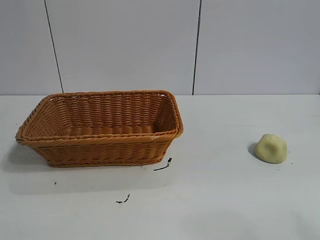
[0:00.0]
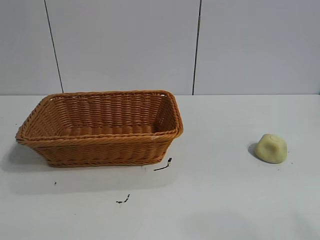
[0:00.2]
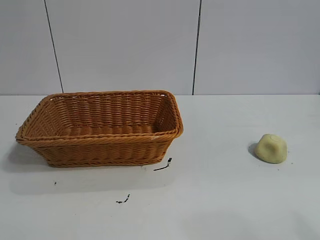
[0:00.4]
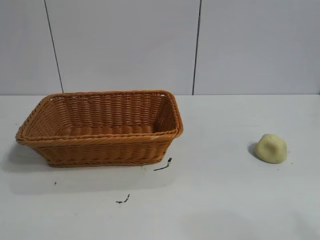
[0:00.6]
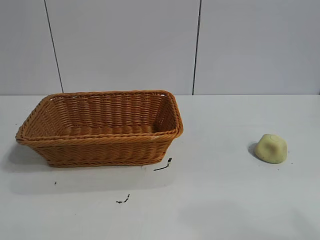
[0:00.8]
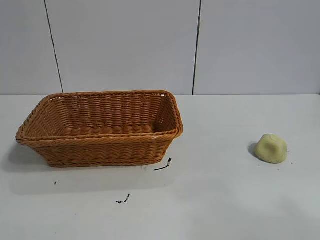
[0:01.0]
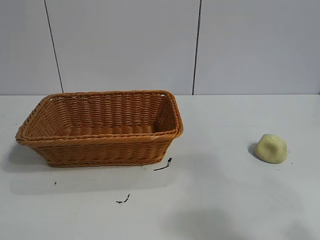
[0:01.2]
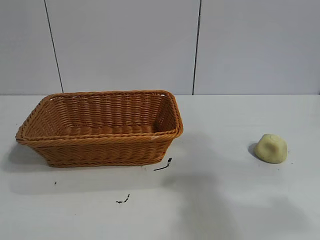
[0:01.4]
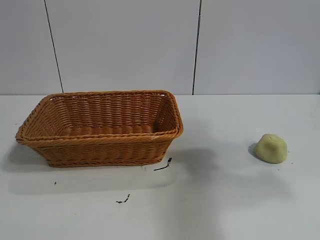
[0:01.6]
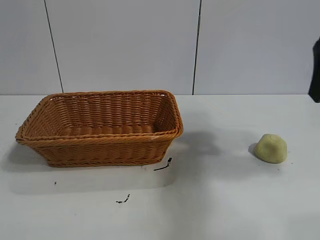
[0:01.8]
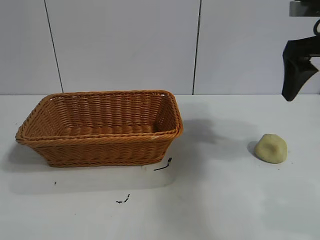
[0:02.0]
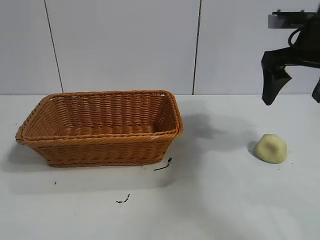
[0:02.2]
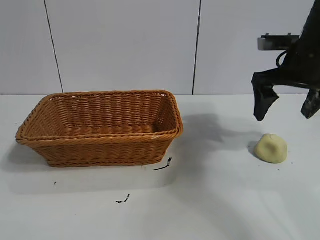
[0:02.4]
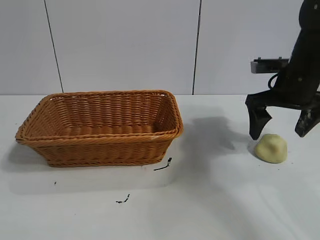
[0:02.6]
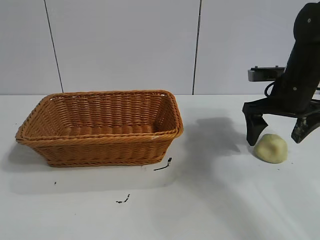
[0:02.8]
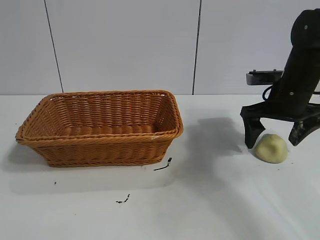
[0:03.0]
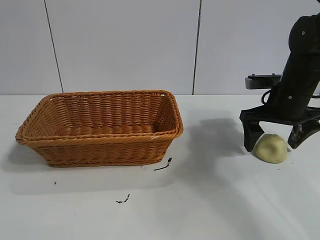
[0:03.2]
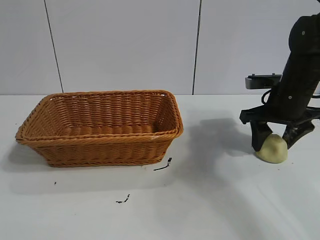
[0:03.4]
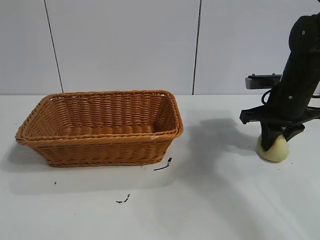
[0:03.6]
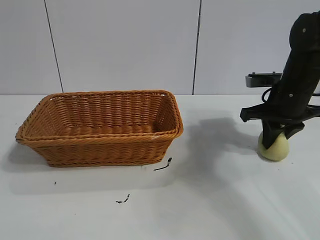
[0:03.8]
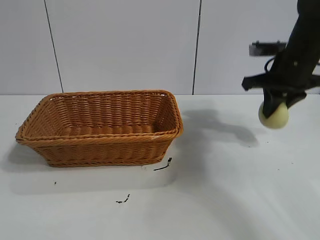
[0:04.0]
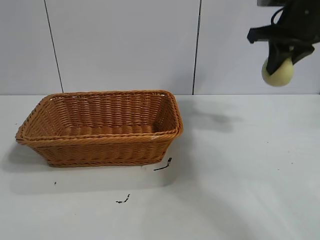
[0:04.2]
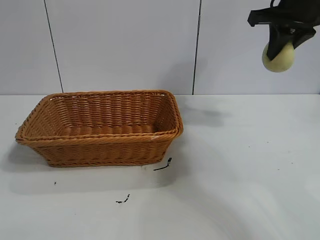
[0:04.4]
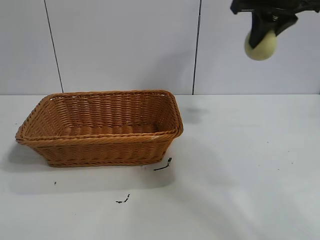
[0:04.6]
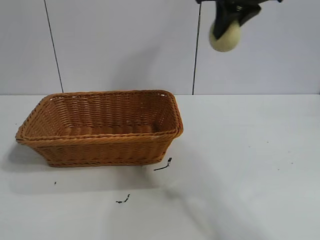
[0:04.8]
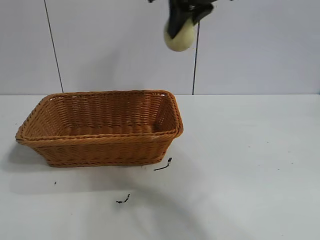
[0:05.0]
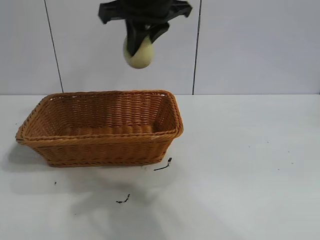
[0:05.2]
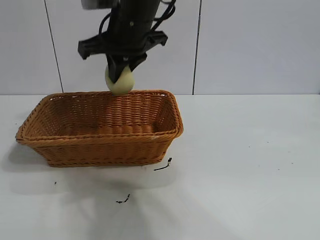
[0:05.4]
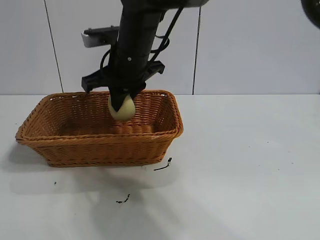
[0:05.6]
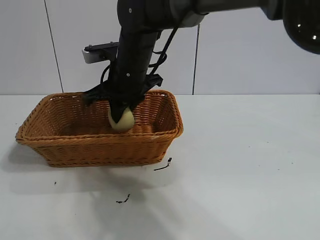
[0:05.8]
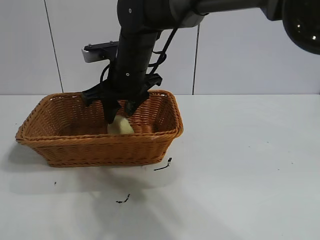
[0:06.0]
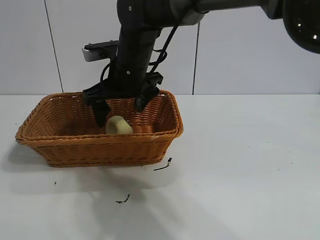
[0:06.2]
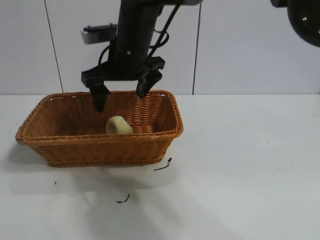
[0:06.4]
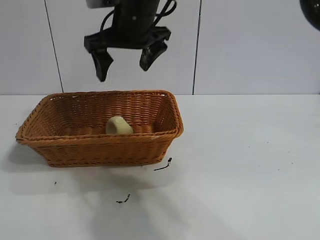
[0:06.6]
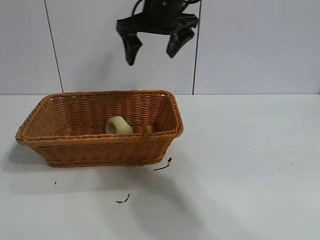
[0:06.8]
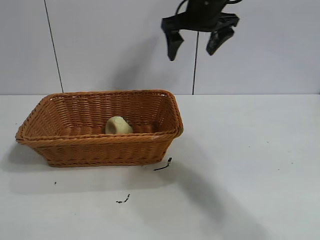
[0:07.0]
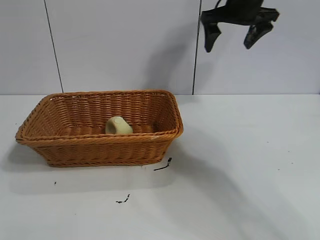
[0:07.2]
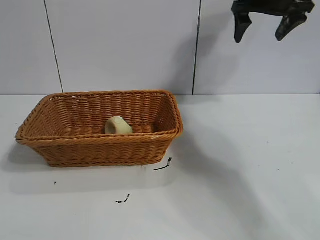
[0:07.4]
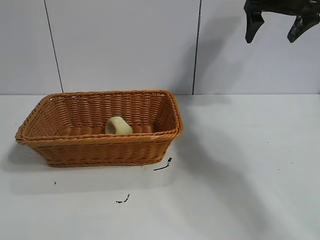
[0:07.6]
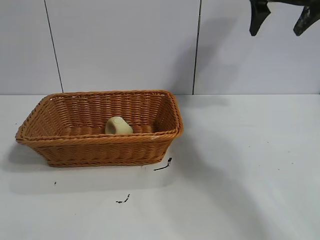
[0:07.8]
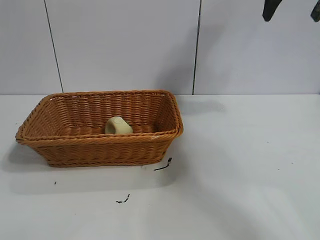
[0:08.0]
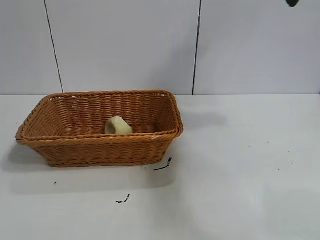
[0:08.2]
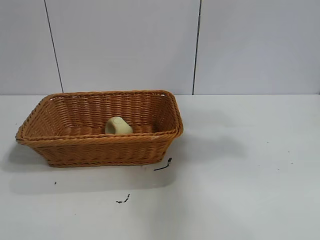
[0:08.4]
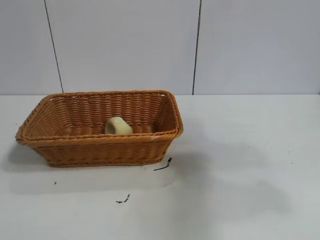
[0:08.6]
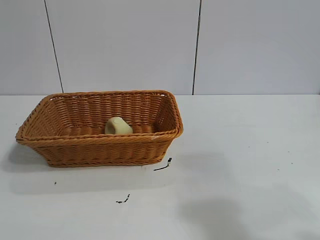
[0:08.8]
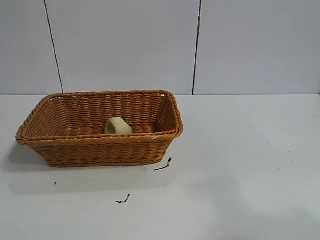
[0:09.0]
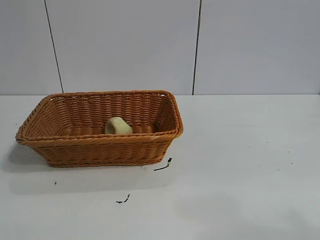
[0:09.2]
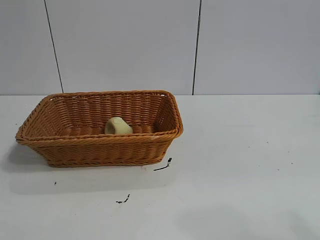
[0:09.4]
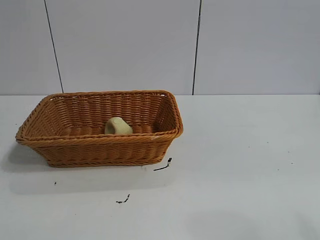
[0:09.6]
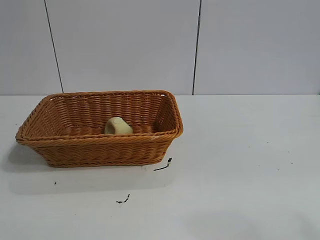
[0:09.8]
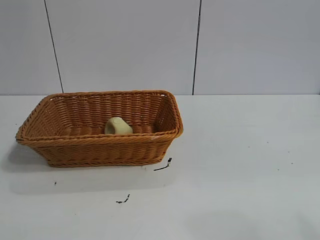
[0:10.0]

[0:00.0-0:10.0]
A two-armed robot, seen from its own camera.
Task of the whole recording: pick up the egg yolk pastry and put it into the basket.
Step, 0.8 to 3.4 s: Grasp egg yolk pastry with right gripper.
Step, 3.8 to 6.0 s: Place the egg yolk pastry in the basket with right gripper.

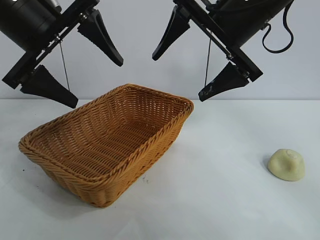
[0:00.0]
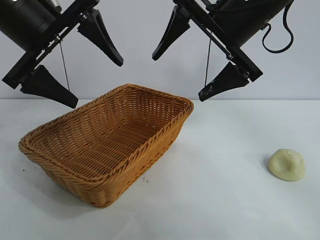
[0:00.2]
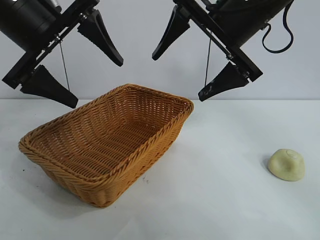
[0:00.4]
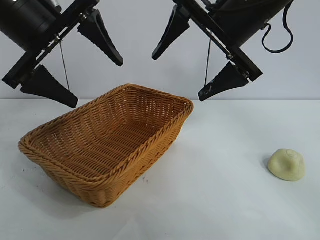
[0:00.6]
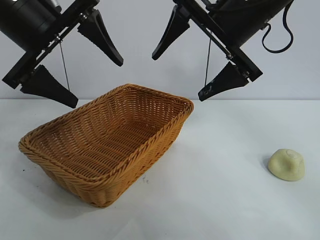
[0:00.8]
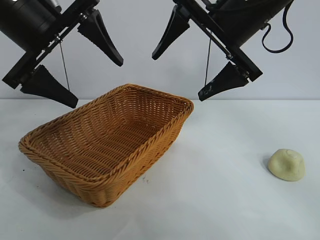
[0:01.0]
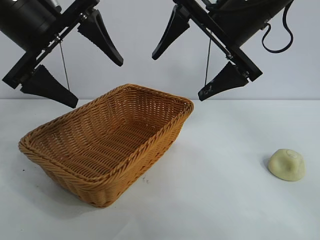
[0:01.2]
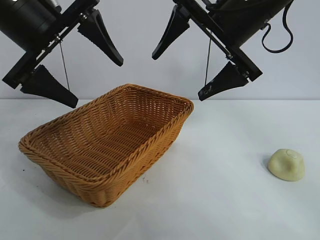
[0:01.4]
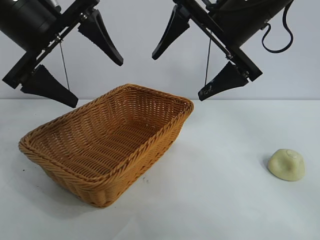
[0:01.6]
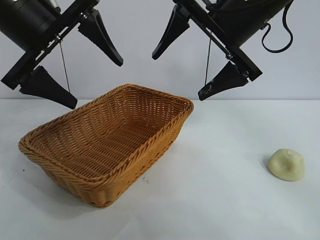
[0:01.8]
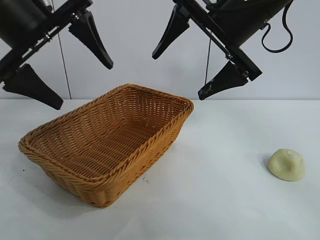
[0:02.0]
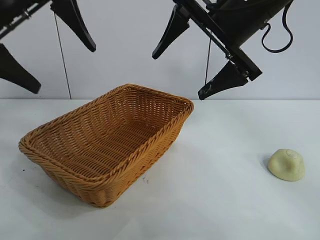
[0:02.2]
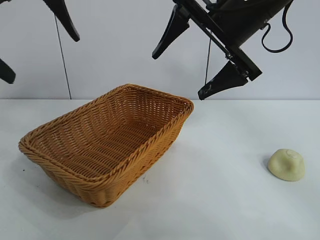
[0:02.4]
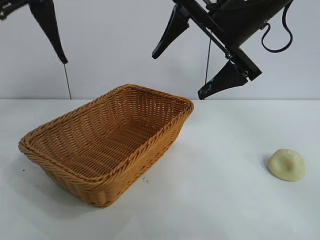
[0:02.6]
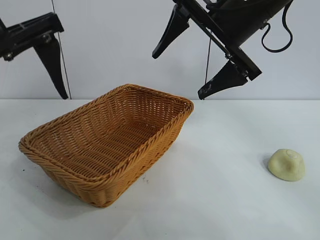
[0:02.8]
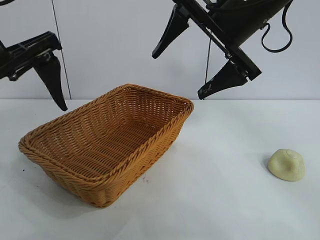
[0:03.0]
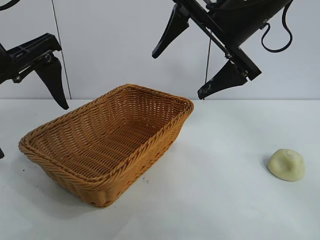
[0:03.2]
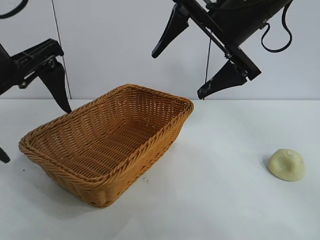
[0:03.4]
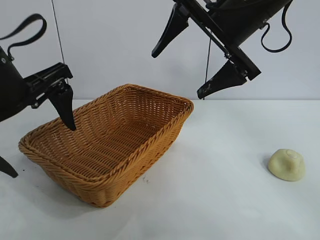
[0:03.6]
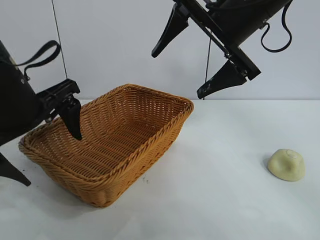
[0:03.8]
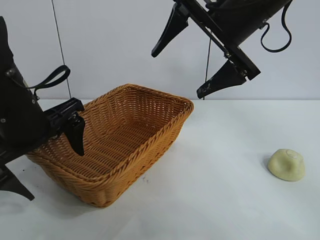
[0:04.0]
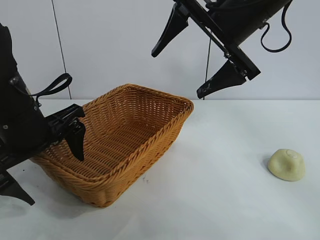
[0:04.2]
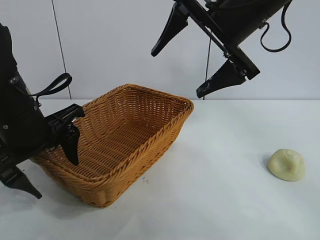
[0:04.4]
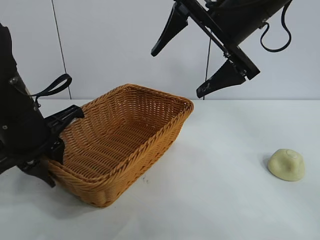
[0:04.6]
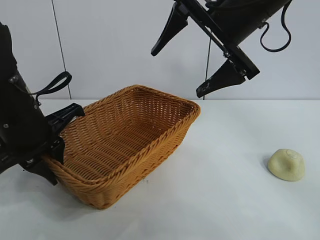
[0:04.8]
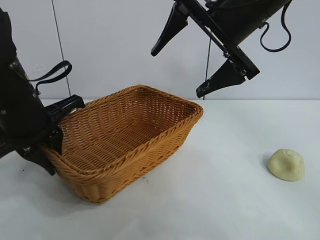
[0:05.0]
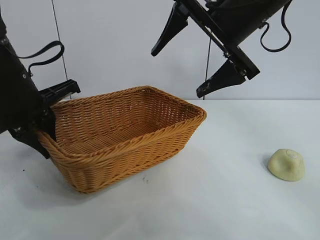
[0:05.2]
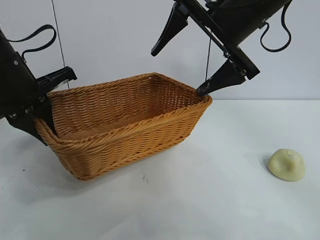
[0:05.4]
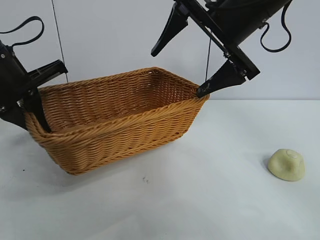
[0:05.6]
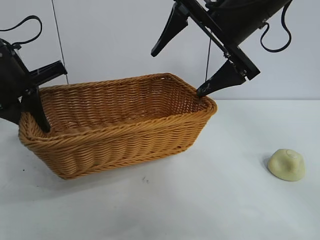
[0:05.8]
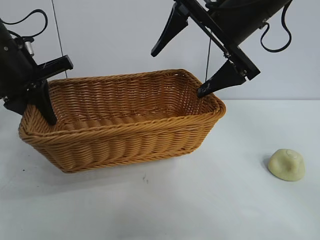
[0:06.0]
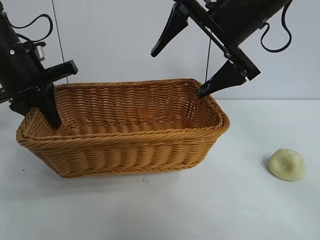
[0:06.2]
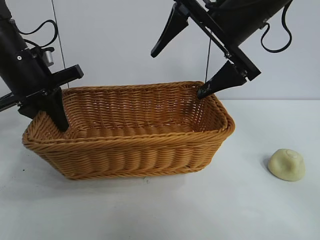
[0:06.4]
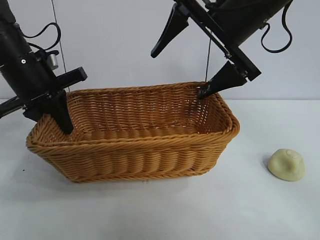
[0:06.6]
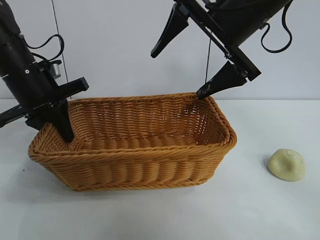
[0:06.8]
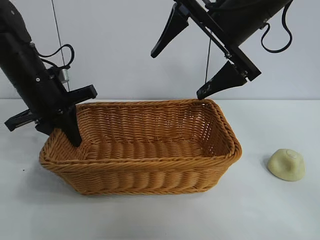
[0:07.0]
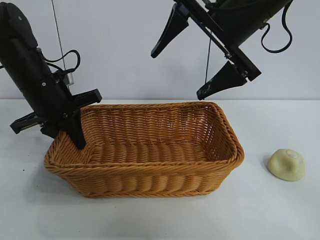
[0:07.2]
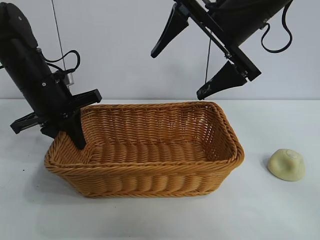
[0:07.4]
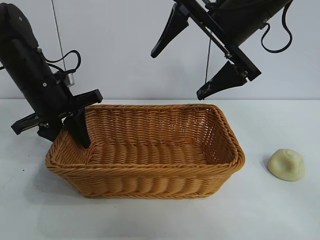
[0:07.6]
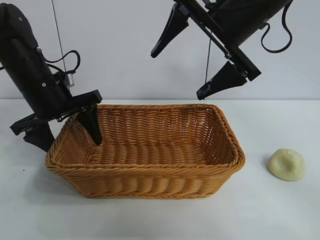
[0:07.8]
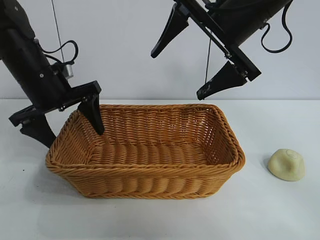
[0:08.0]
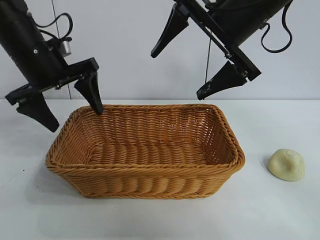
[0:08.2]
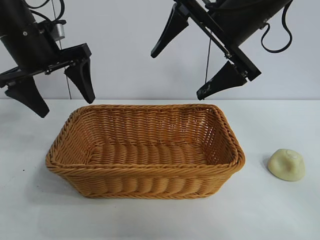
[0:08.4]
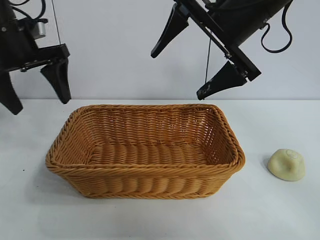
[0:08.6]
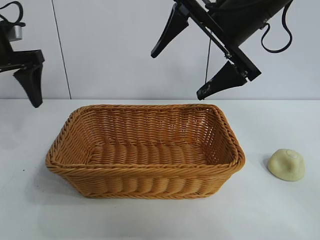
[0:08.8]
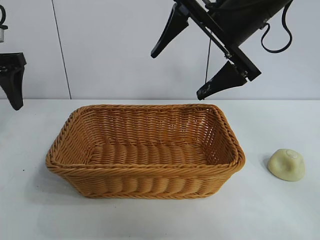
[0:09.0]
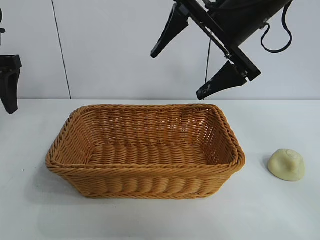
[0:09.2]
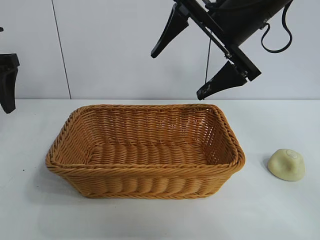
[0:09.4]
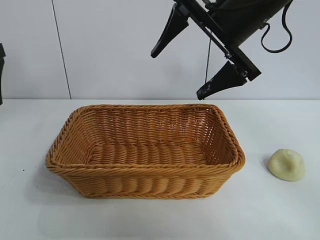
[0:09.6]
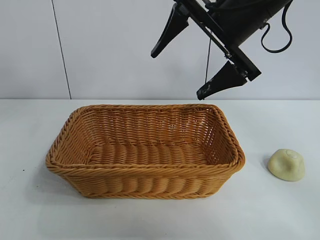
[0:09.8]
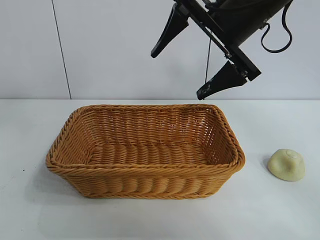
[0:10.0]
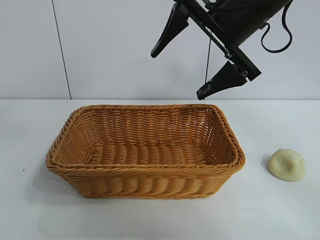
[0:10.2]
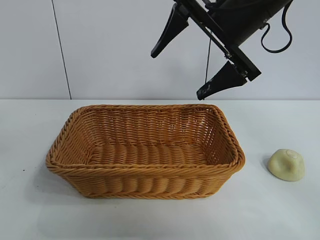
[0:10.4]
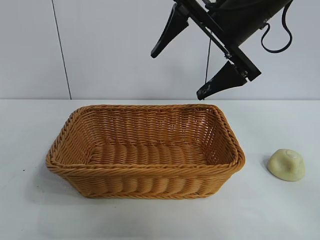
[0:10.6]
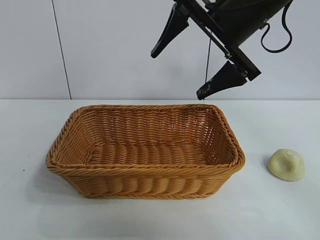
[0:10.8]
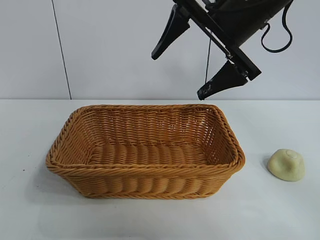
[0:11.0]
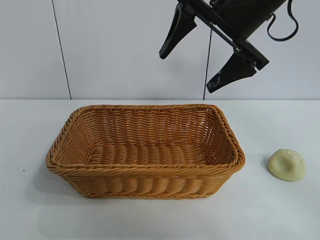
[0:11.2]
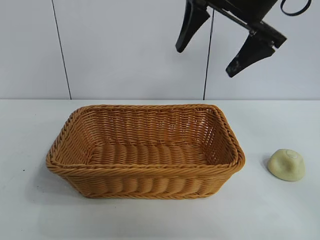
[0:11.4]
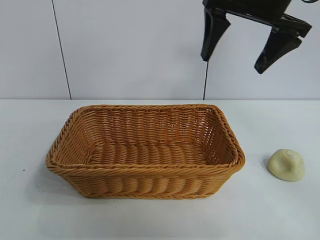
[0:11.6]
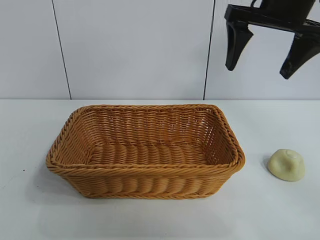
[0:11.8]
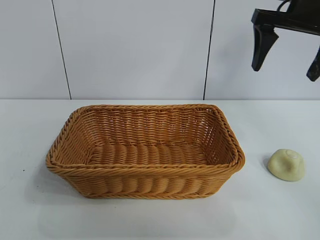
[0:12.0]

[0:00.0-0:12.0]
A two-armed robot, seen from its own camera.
Task of the whole recording: pick up the egg yolk pastry and put it into the basket.
Step, 1.6 to 4.6 s: Grasp the basket with left gripper.
Step, 4.8 to 7.6 s: Place the basket in the center of view with left gripper.

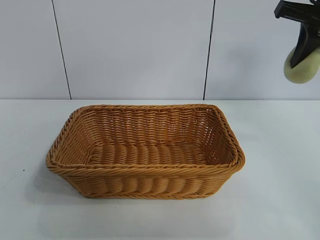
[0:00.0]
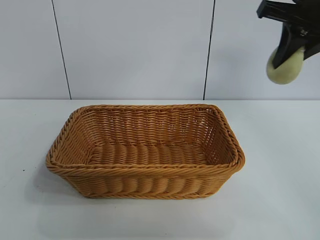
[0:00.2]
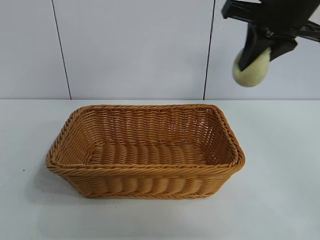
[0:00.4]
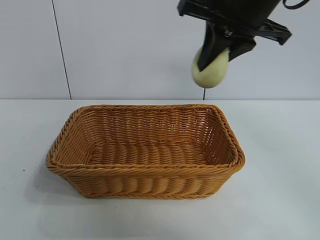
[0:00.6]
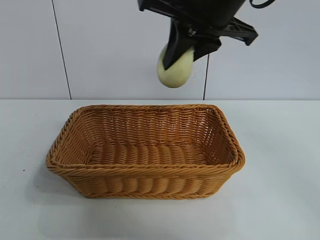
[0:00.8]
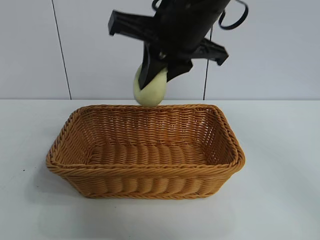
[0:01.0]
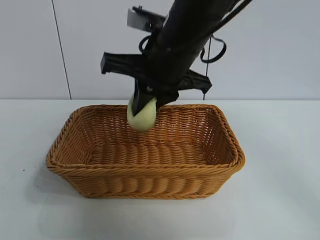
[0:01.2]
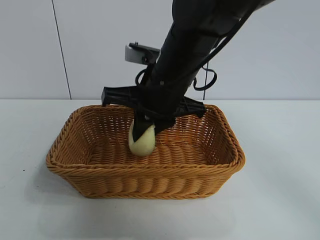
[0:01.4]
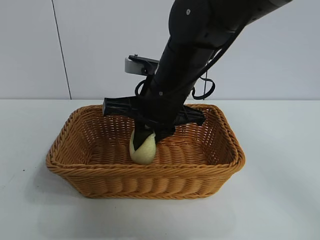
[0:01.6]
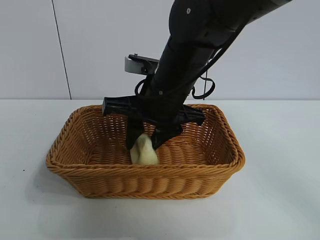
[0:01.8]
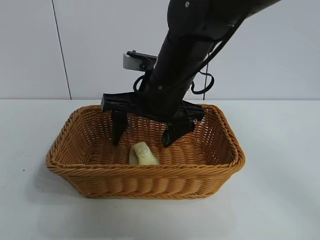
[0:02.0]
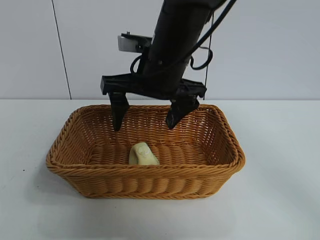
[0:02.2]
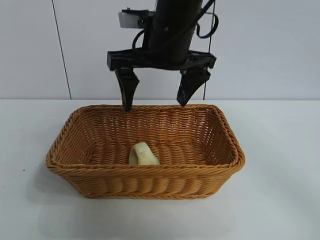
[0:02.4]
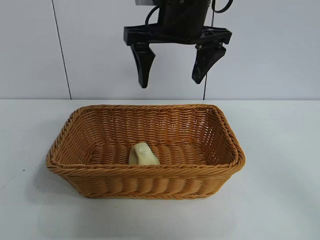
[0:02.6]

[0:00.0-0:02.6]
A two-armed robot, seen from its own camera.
Task of the whole recording: pick up the egg yolk pastry and put it into the basket.
Step, 0.0 to 1.8 s: Place the egg yolk pastry in the basket with right gripper.
